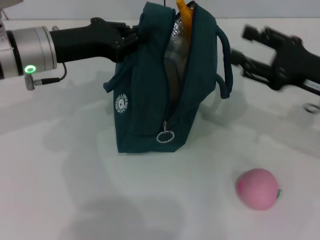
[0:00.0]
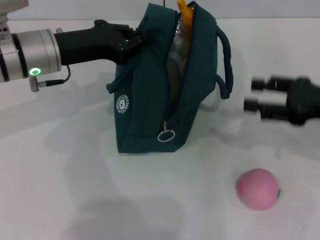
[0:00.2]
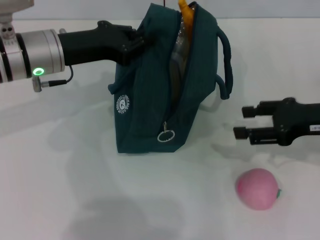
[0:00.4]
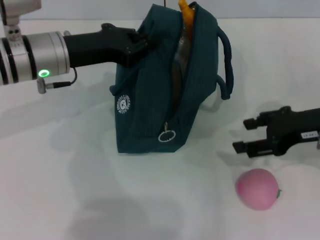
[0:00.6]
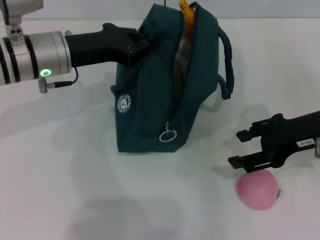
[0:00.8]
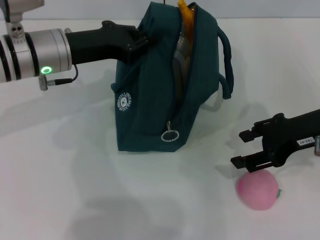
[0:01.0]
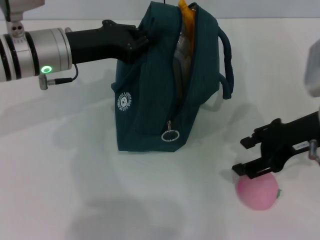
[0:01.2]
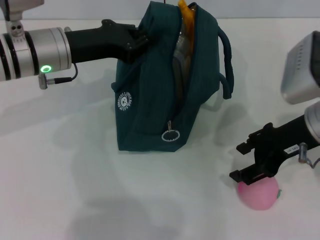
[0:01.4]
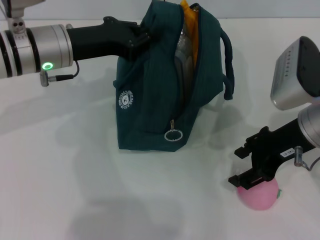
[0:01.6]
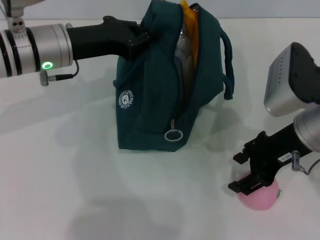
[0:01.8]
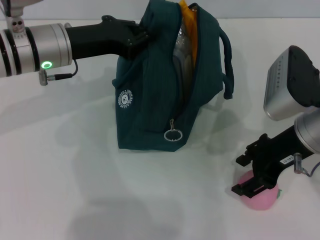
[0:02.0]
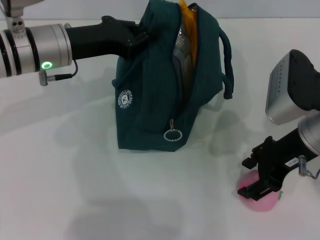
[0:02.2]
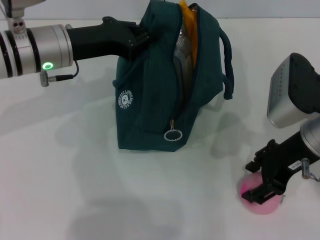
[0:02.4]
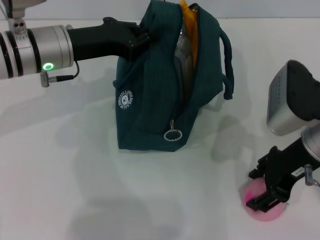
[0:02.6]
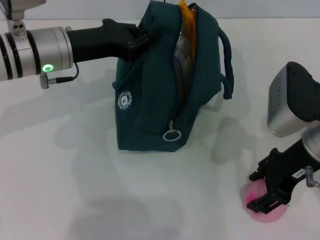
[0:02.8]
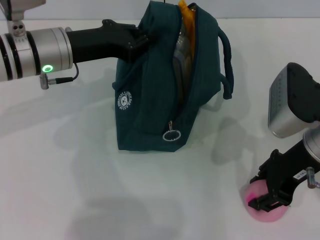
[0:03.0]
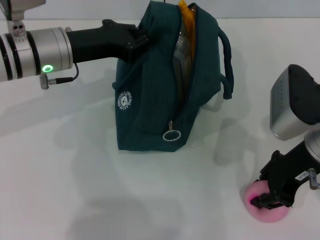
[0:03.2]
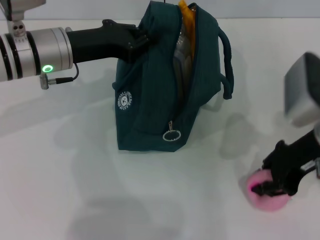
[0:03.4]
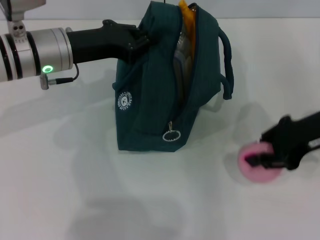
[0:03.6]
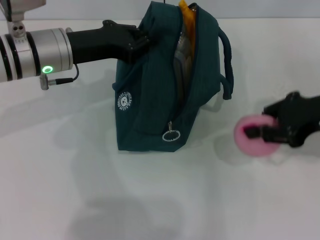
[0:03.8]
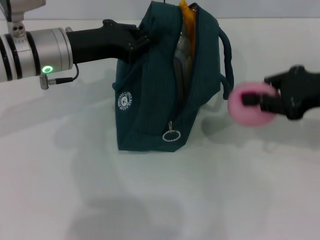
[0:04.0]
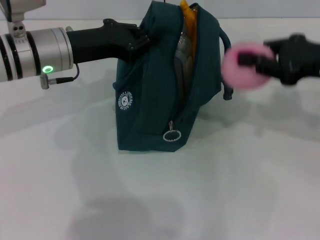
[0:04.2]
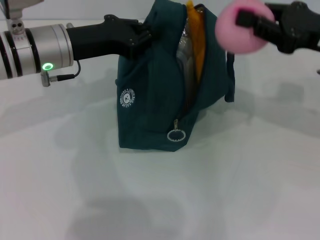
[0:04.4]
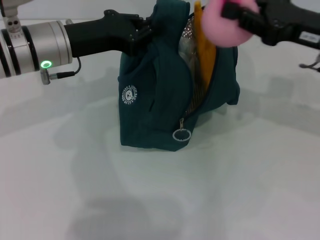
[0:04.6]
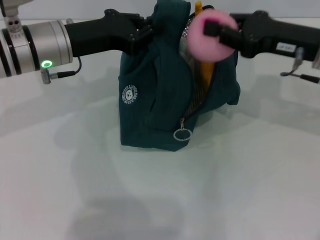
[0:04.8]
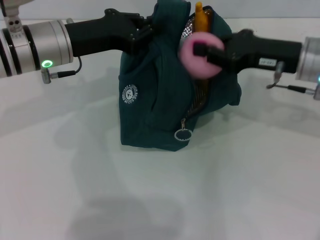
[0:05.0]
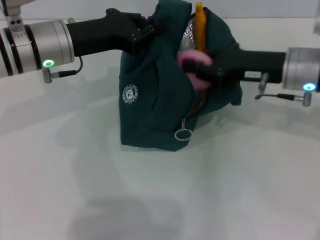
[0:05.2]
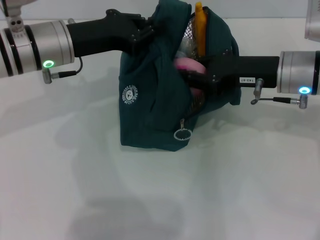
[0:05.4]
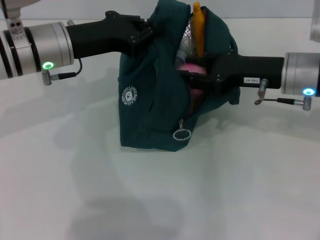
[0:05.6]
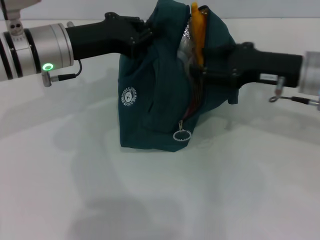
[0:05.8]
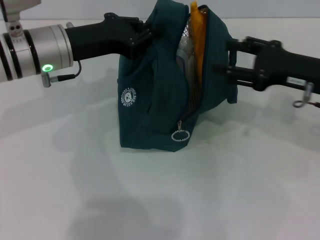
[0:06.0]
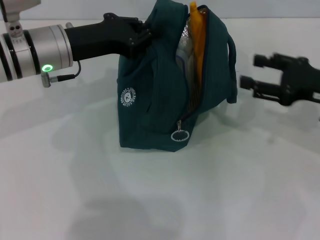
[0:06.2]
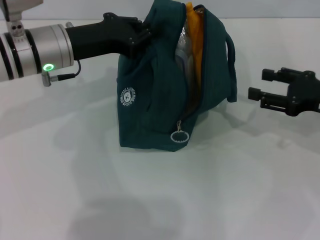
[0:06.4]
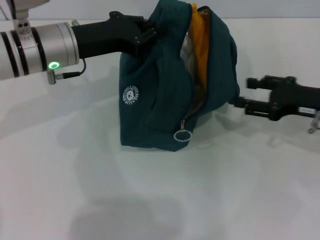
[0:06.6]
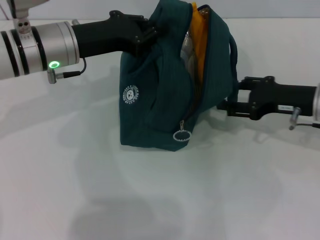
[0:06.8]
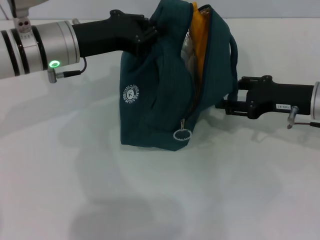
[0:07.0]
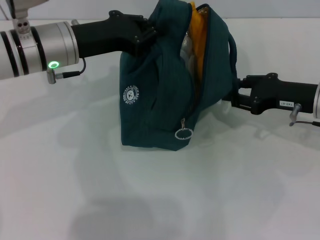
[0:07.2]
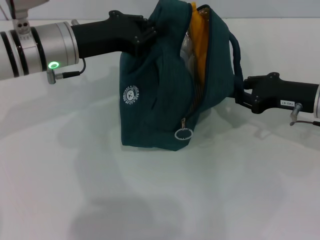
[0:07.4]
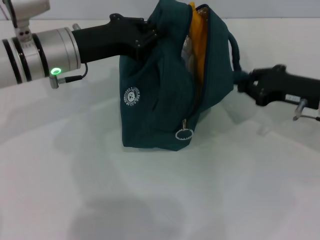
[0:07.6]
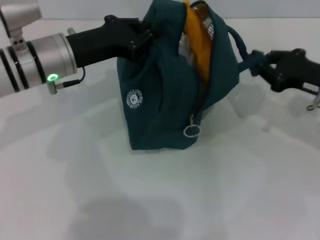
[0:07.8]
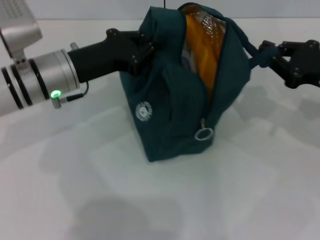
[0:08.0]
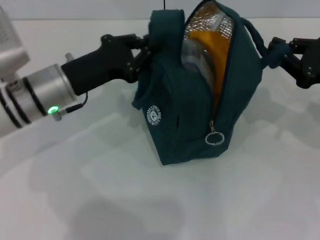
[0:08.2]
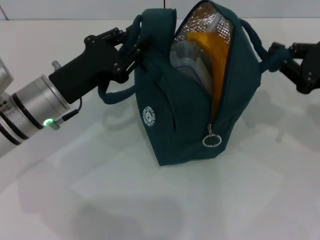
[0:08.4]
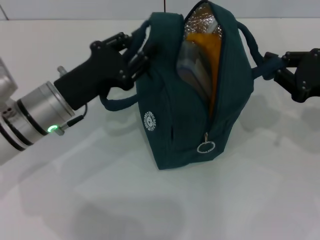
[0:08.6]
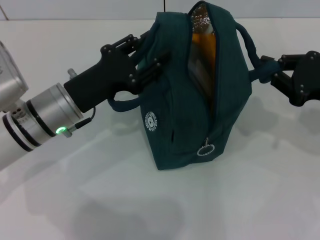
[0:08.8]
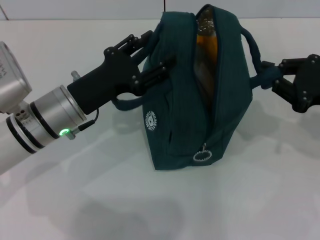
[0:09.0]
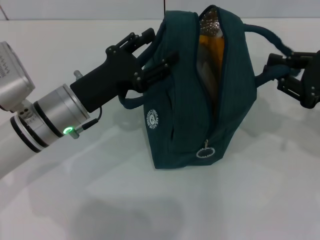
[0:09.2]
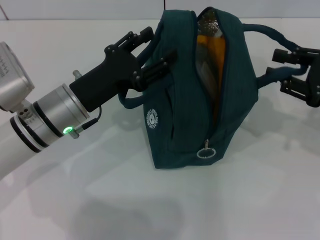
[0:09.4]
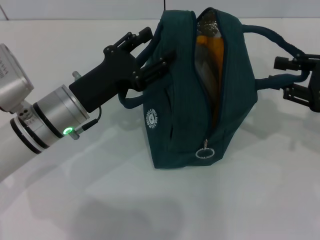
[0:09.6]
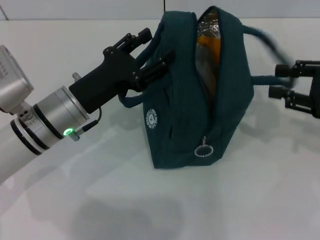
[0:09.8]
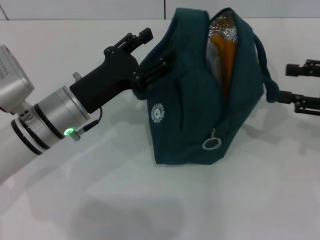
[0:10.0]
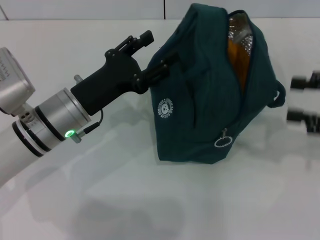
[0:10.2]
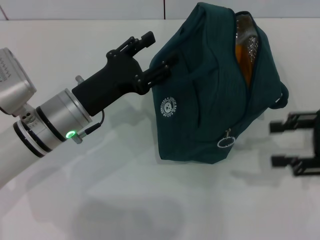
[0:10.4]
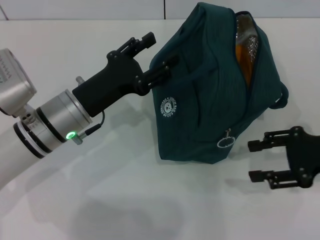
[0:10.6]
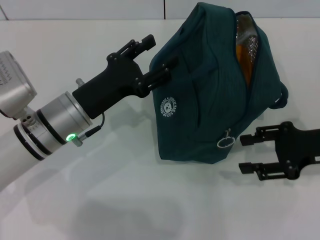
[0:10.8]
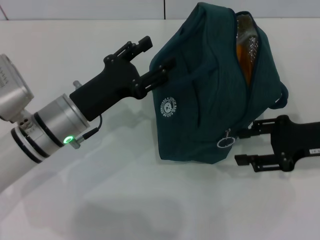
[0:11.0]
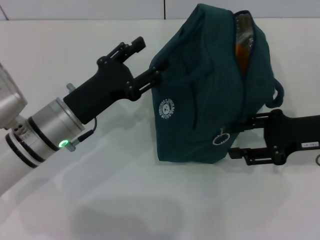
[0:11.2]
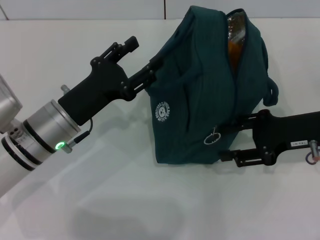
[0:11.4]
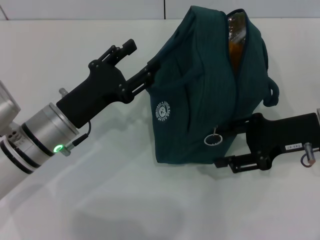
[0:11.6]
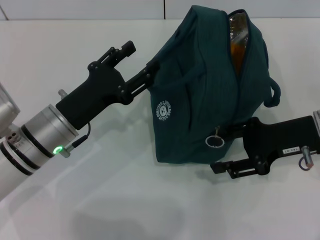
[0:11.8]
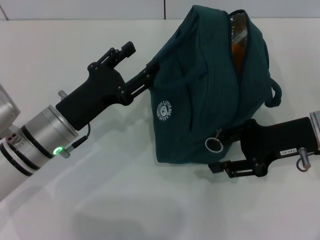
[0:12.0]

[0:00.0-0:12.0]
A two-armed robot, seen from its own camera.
Step, 0:00.0 to 0:03.0: Grab the peach with your right hand.
Step, 0:06.0 to 0:09.2: Hold the lunch bag with your right hand.
0:00.0 to 0:01.6: The right gripper moves to the left, about 5 cm.
0:01.6 to 0:03.0: There are only small adjustments of the grippers.
0:03.0 to 0:04.4: The right gripper shifts approximately 5 cm to the right, and closes up.
0:04.4 to 0:06.0: The right gripper opens its fingers.
0:06.0 to 0:07.6: The right gripper closes its fingers.
0:07.6 to 0:09.0: The left gripper moves backward and downward, approximately 10 cm, and opens its fingers, while the right gripper changes place by roughly 5 cm.
0:09.0 to 0:10.4: The right gripper opens.
0:10.4 to 0:12.0: The right gripper shifts approximately 10 cm to the left.

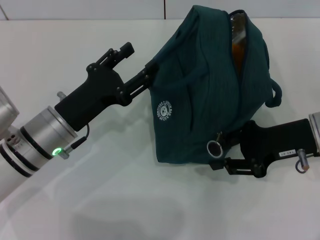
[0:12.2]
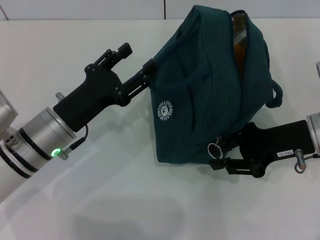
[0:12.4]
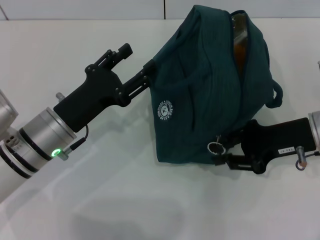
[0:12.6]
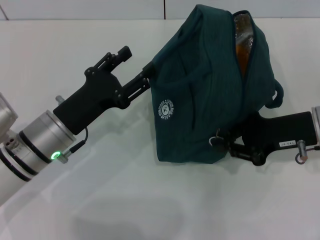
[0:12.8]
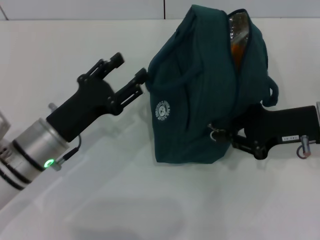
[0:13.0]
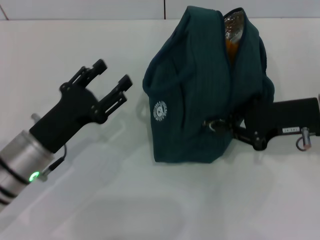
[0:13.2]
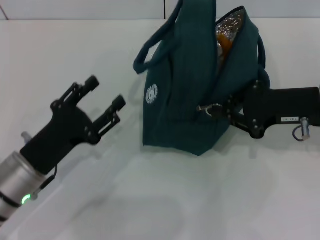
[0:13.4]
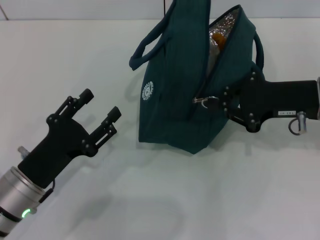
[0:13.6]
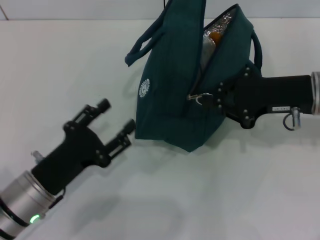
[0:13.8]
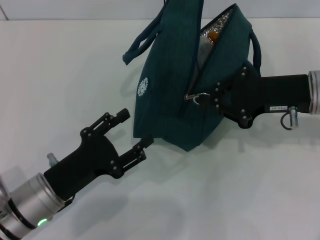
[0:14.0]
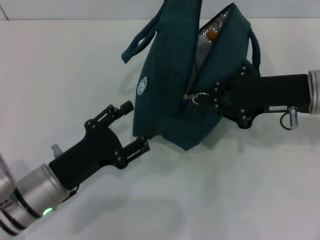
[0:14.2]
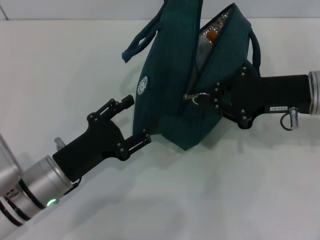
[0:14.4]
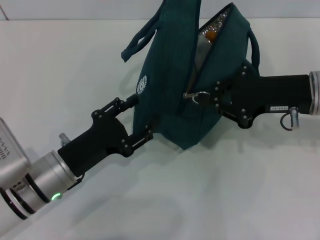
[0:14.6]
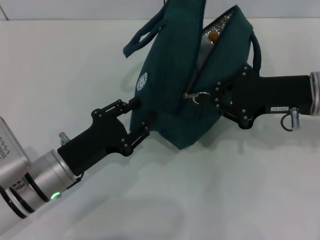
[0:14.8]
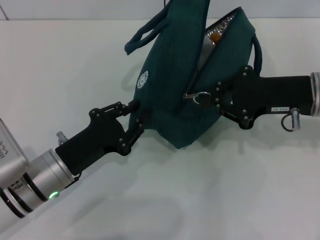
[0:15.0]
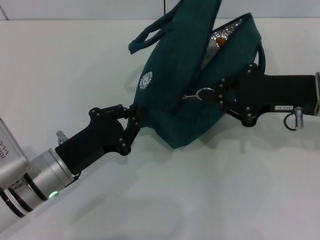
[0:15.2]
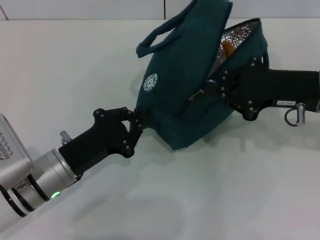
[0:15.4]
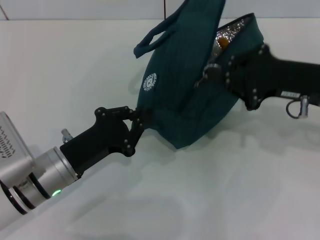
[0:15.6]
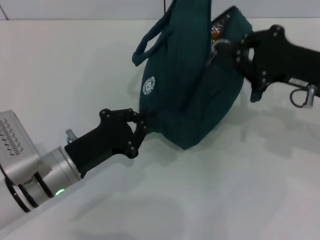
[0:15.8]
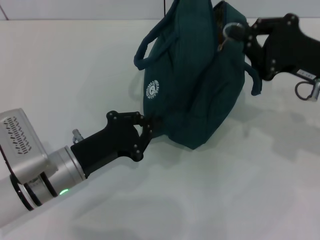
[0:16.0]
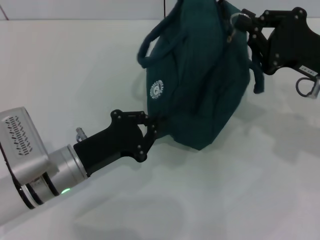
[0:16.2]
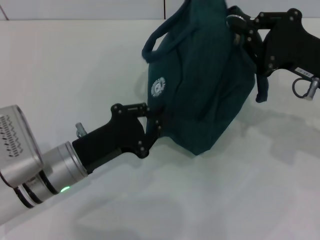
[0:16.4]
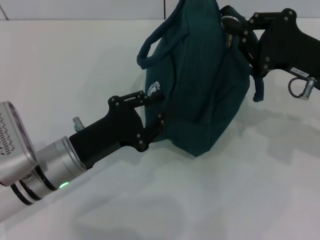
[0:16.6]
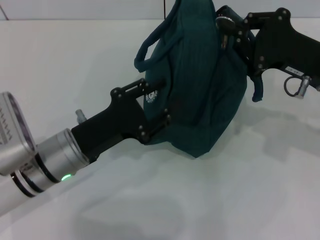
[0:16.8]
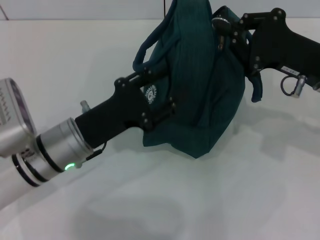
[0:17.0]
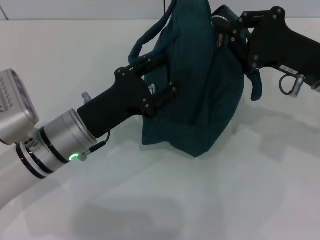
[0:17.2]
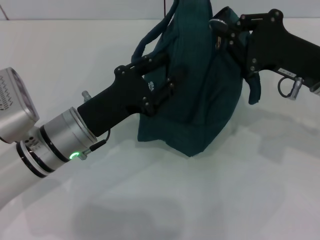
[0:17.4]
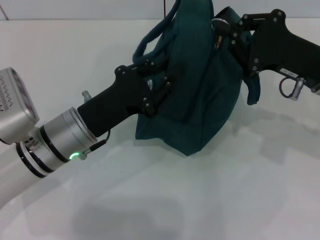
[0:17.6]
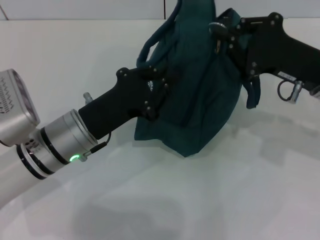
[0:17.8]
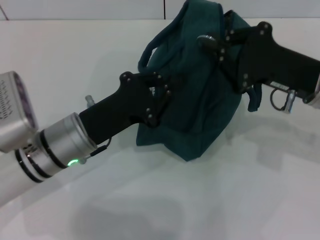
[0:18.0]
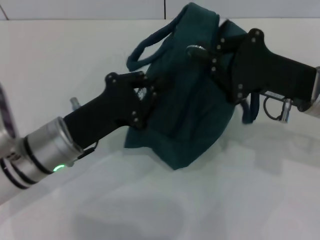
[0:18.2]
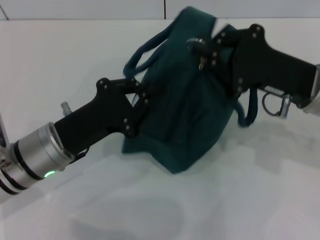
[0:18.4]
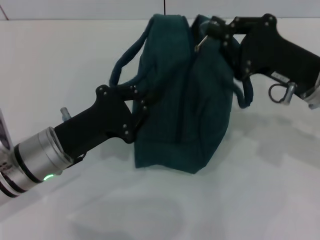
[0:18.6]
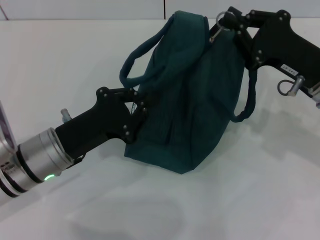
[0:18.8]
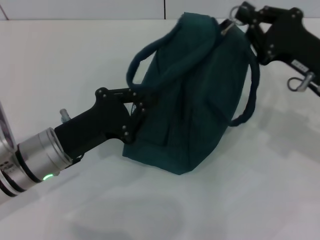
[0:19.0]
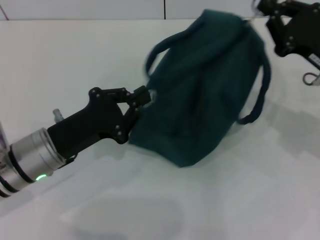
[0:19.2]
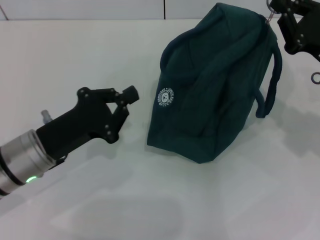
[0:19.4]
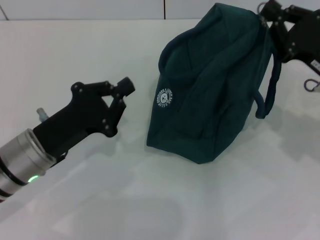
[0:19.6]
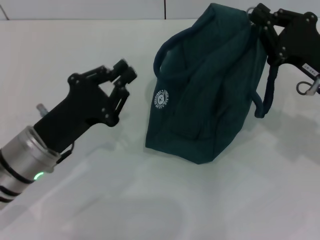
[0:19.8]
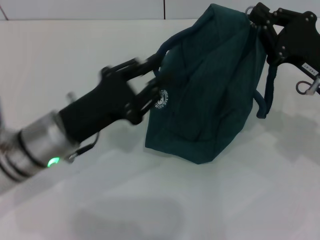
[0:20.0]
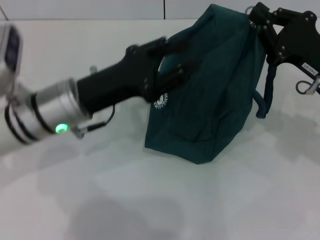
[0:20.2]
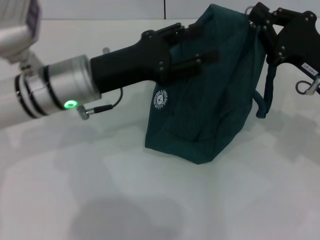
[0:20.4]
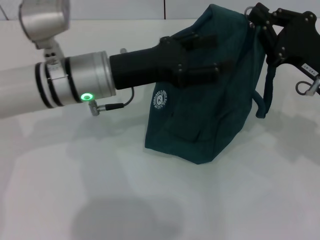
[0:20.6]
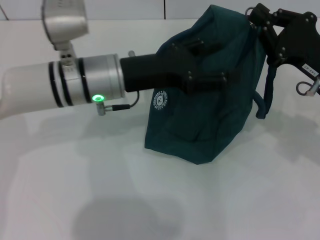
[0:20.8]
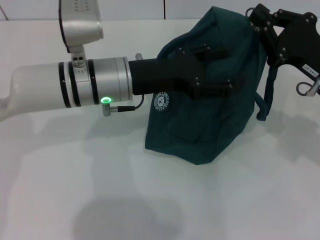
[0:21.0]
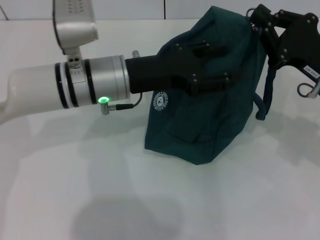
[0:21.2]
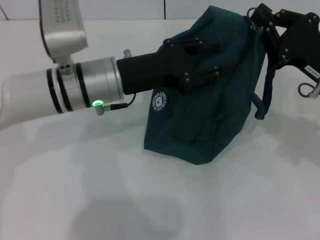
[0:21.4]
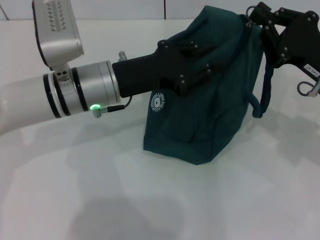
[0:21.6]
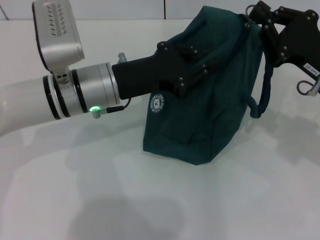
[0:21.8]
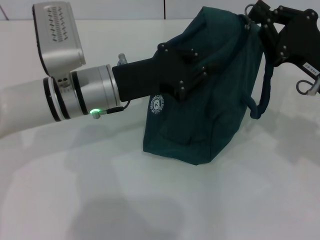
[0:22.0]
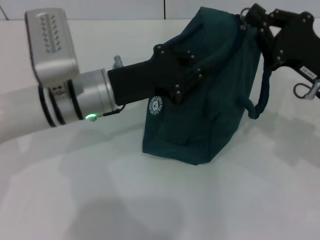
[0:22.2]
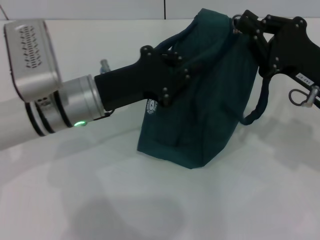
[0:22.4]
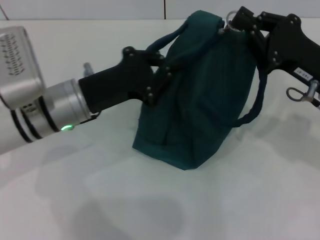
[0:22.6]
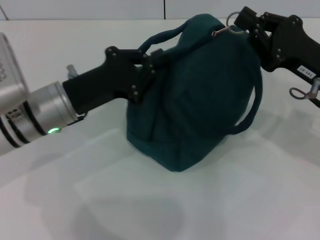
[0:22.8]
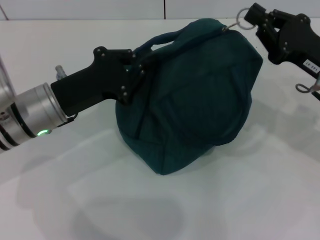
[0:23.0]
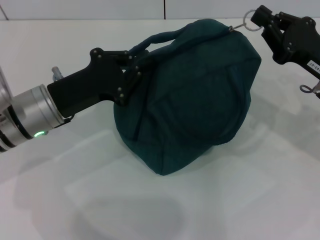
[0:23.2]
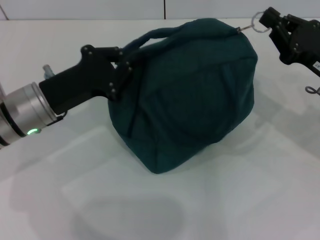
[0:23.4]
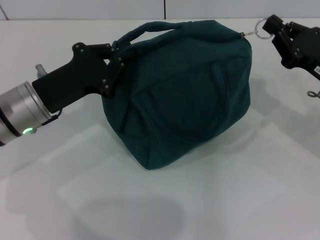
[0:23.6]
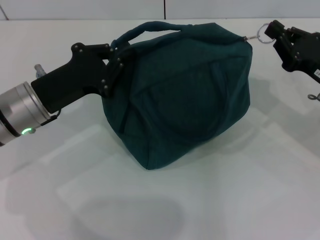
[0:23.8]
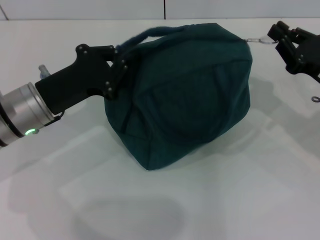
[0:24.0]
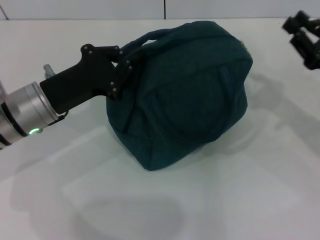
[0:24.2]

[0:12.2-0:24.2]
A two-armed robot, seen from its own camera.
0:12.2 to 0:13.8: The right gripper closes up; the left gripper moves backward, some 10 cm.
0:13.8 to 0:15.2: The left gripper closes its fingers.
0:16.6 to 0:18.2: The left gripper opens, then closes once more.
0:18.2 to 0:19.8: The right gripper moves about 5 cm.
0:19.8 to 0:21.2: The left gripper is displaced forward, to the right and upward by about 15 cm, and opens up.
0:21.2 to 0:22.6: The left gripper moves to the left, some 5 cm, and closes its fingers.
0:22.6 to 0:24.2: The right gripper travels to the right by roughly 5 cm.
